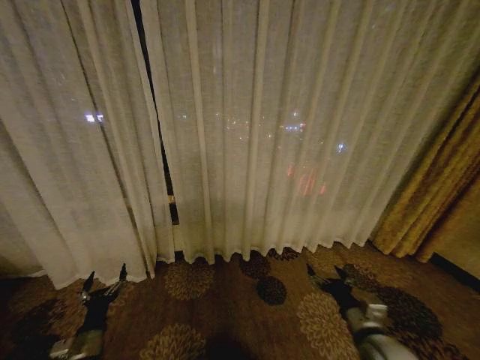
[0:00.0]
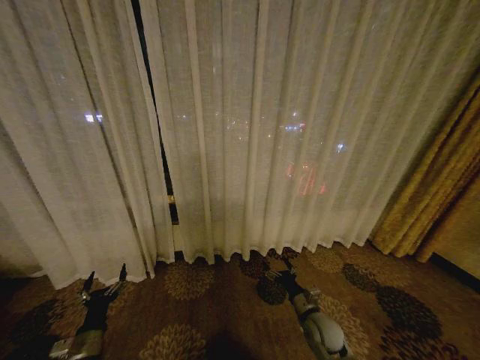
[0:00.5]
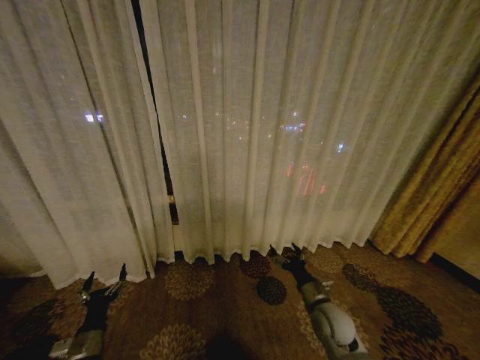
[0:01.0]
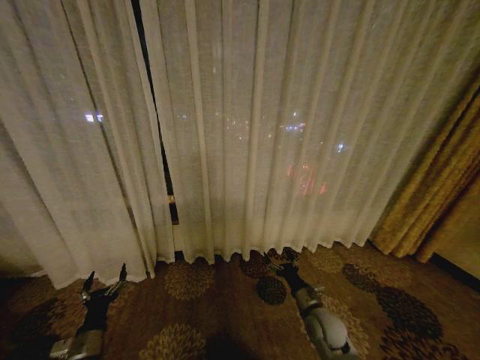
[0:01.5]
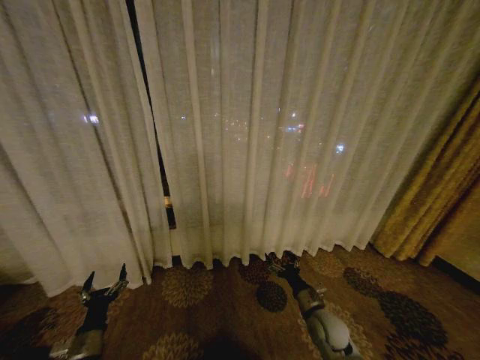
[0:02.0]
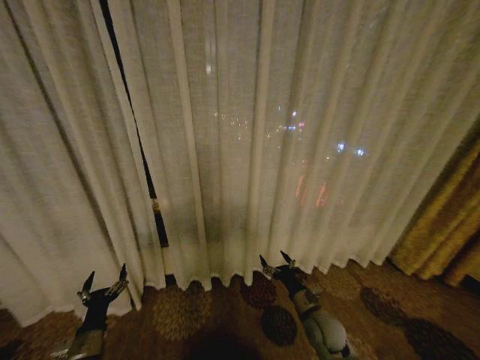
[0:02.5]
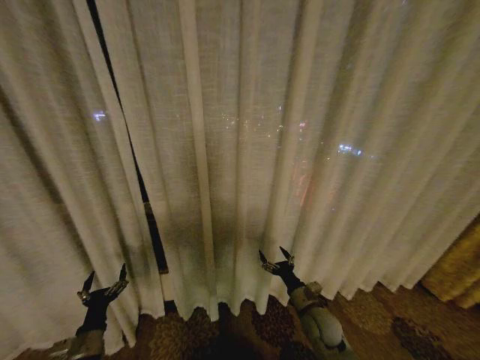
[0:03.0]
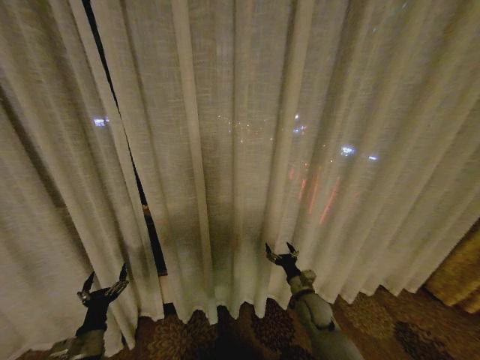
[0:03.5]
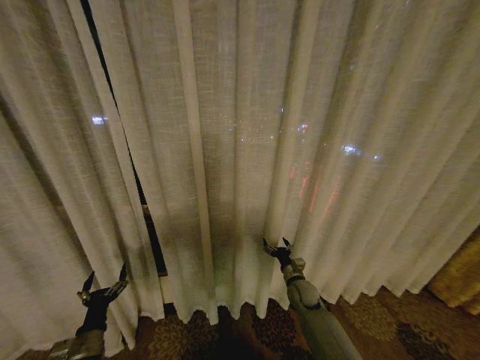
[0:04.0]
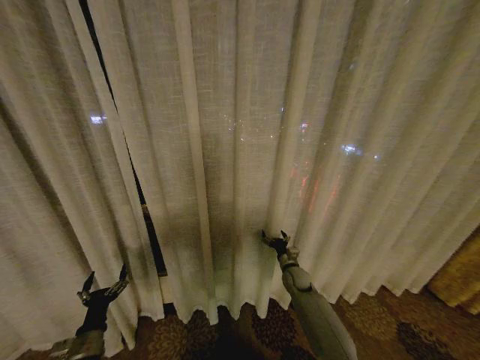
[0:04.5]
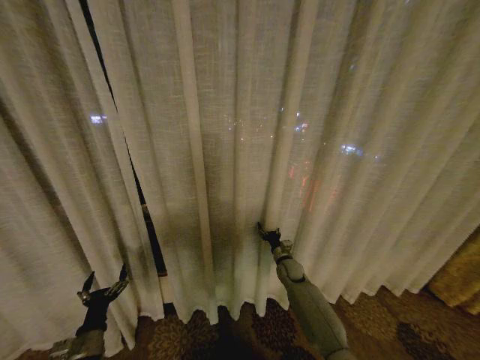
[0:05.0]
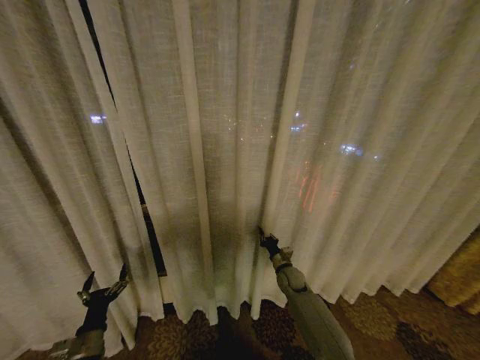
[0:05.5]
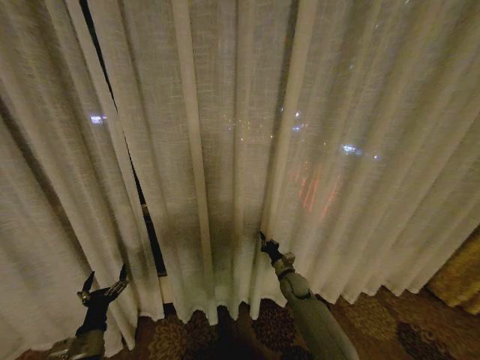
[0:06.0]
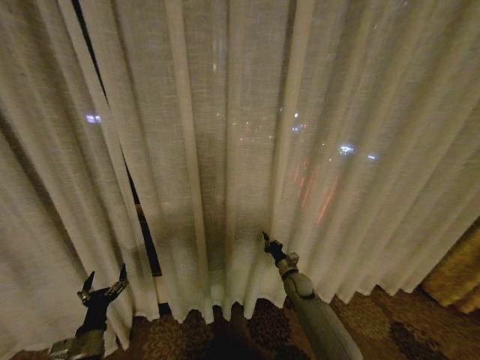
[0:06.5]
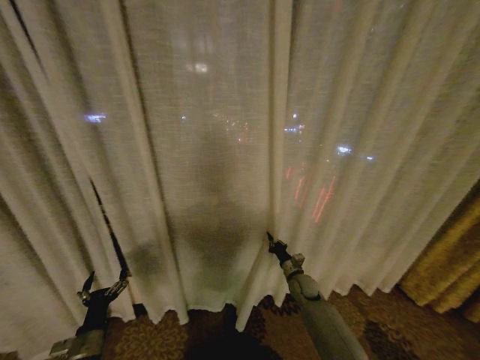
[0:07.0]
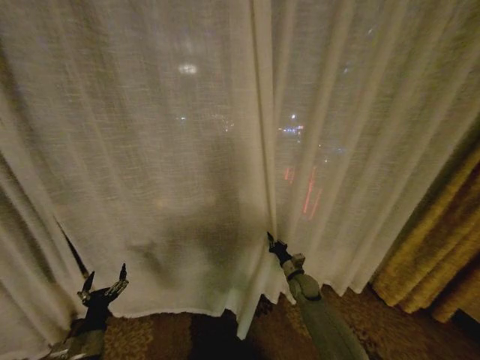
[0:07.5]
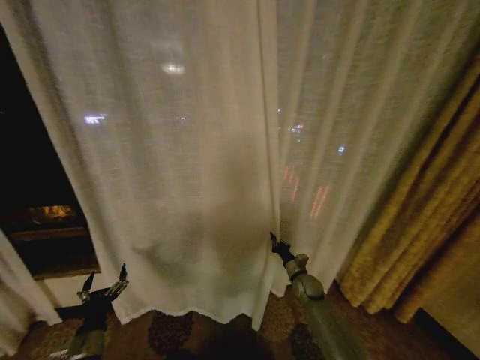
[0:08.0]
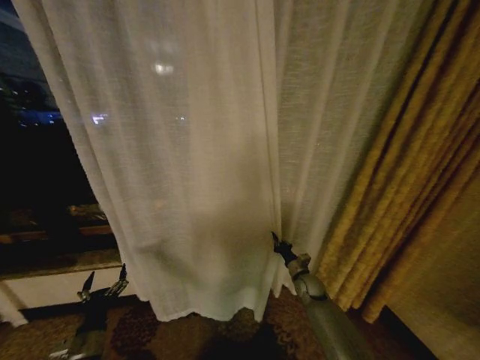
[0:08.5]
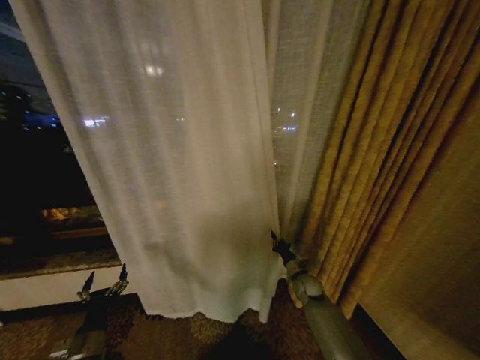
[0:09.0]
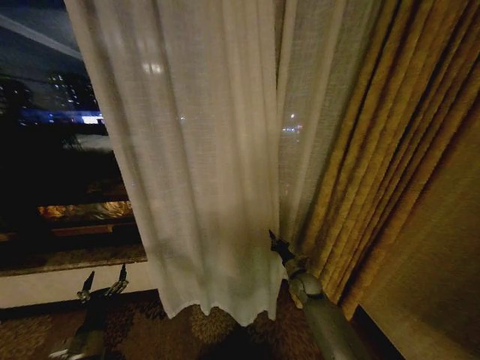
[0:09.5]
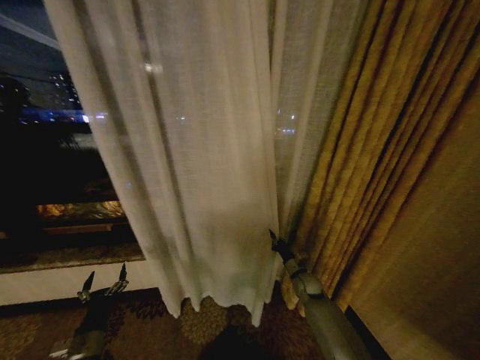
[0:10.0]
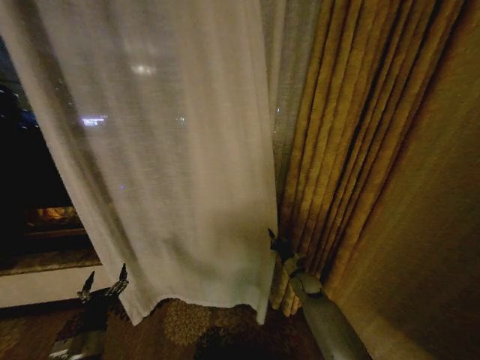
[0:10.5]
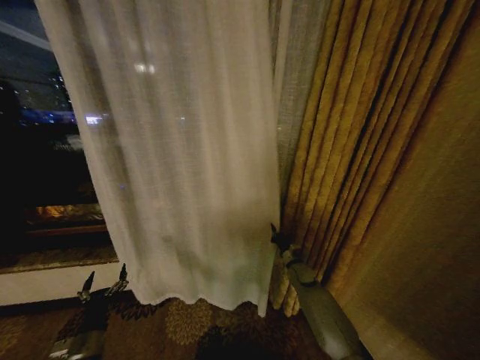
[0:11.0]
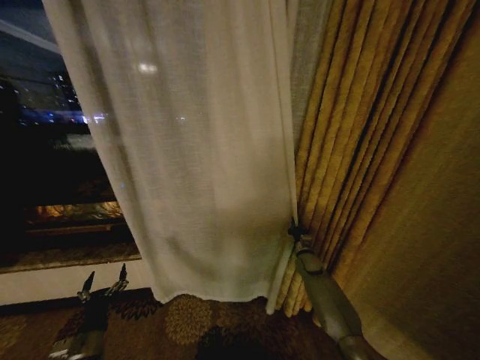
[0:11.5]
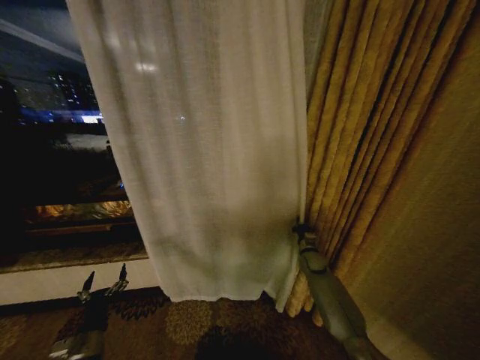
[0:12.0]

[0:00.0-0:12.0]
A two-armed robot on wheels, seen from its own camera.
Task of the whole recording: Open the curtains by pulling them apart, changing their state from closed to fully open.
0:02.0 to 0:04.0: The right gripper is displaced forward by some 10 cm.
0:04.0 to 0:06.0: The right gripper closes up.
0:10.0 to 0:12.0: The right gripper shifts about 5 cm forward.

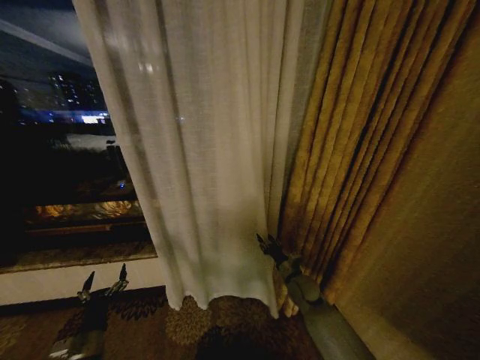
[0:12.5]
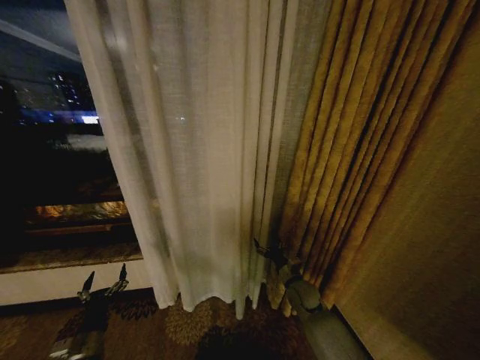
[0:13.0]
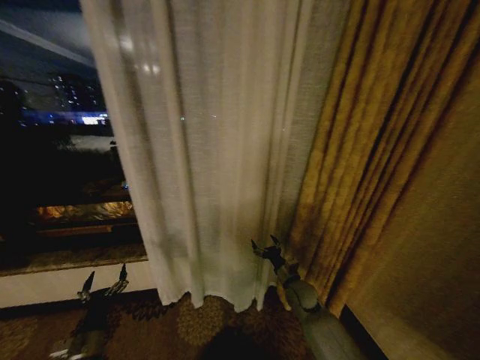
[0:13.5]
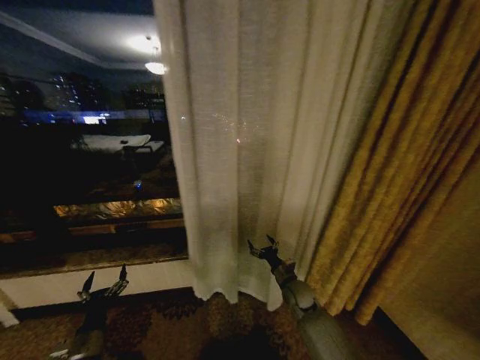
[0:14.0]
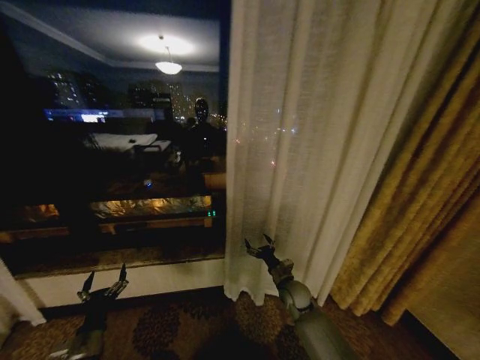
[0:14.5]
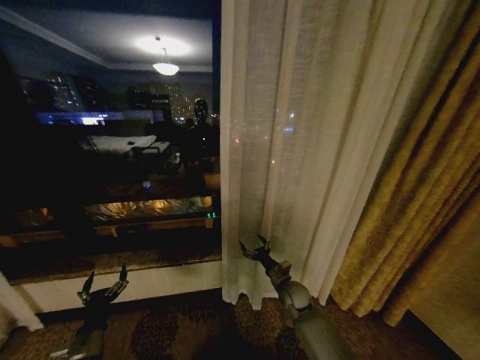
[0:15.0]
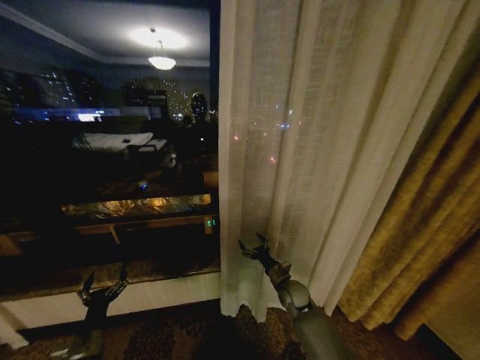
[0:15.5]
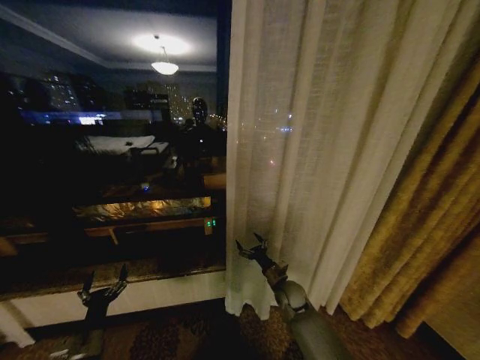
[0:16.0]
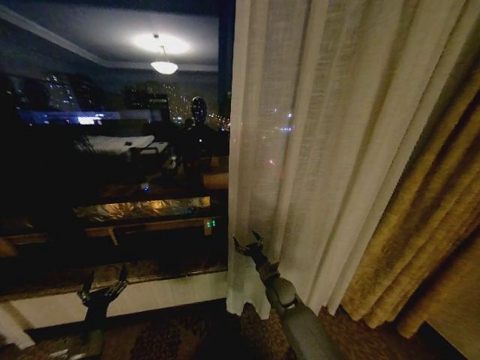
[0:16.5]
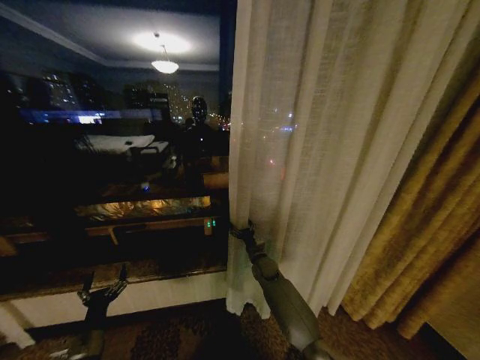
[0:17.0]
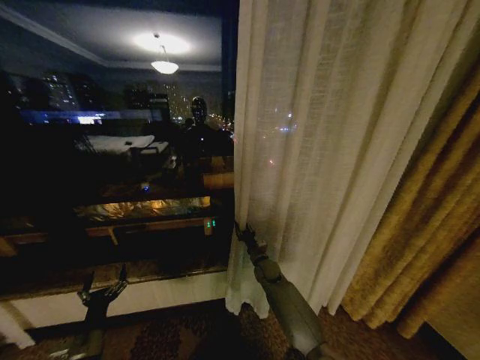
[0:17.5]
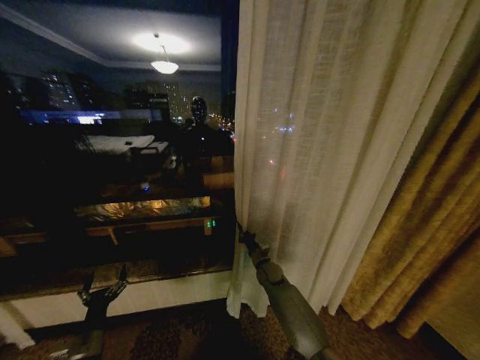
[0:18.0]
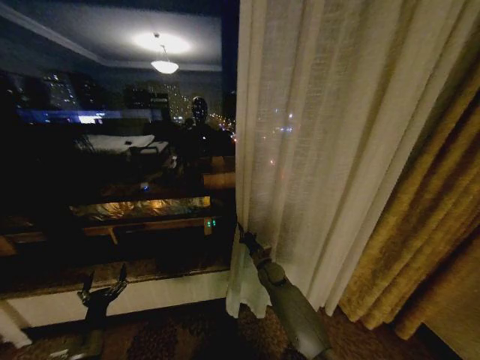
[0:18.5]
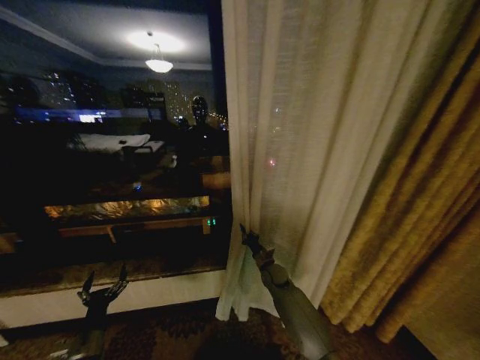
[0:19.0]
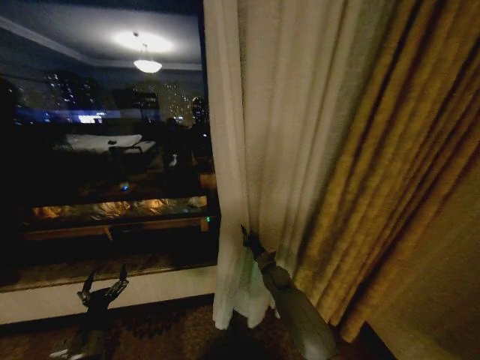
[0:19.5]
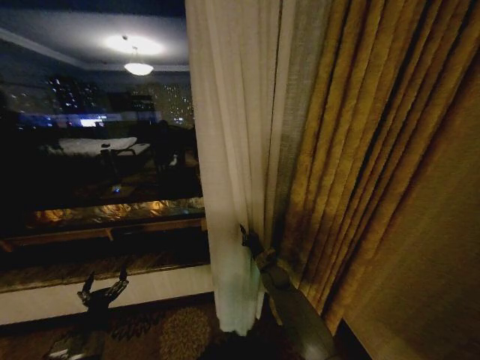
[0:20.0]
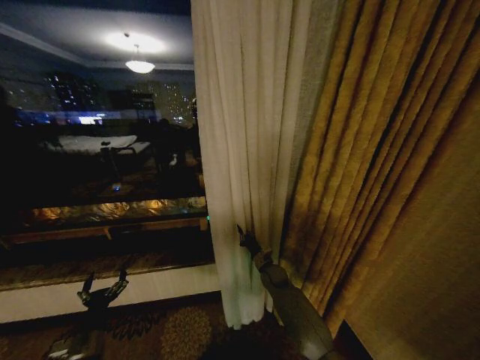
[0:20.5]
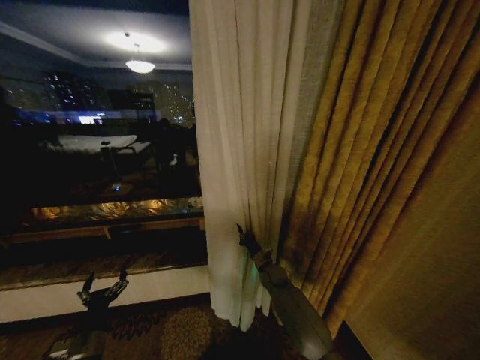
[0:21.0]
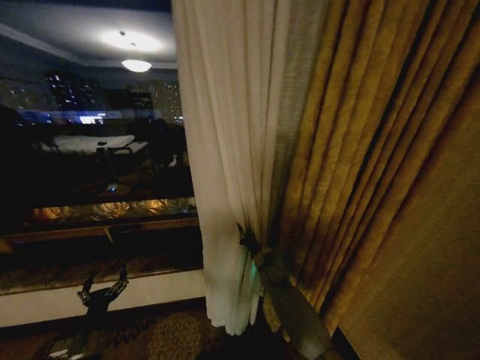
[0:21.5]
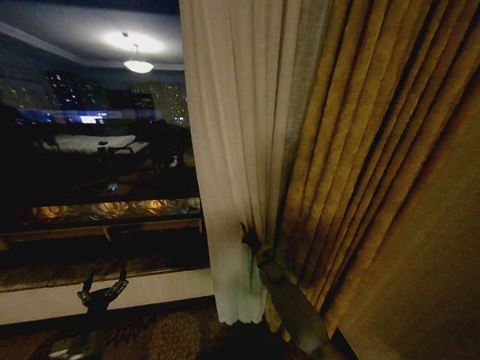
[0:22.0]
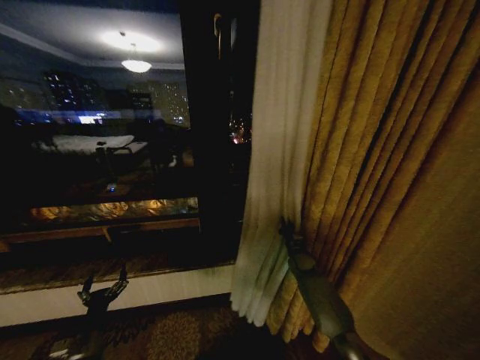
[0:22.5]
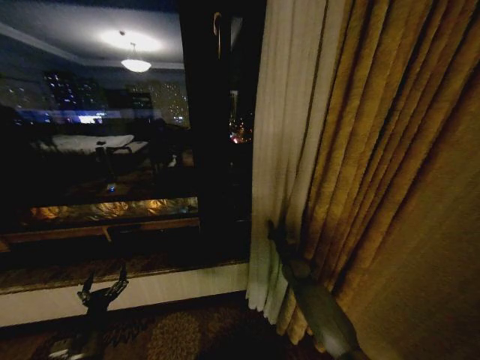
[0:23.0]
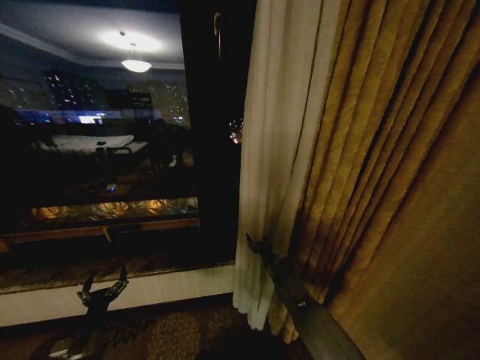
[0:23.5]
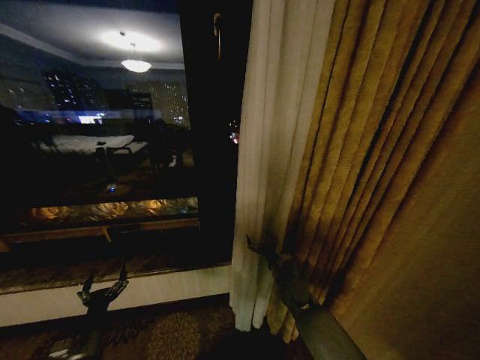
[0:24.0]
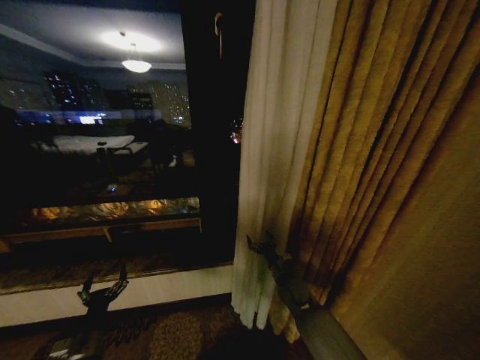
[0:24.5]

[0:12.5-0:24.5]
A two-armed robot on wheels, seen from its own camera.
Task of the whole recording: Open the curtains by pulling them apart, changing their state from closed to fully open.
0:12.5 to 0:14.5: The right gripper opens.
0:16.5 to 0:18.5: The right gripper shifts roughly 5 cm forward, and closes.
0:20.5 to 0:22.5: The right gripper shifts roughly 10 cm to the right.
0:22.5 to 0:24.5: The right gripper goes about 15 cm backward and to the left, and opens up.

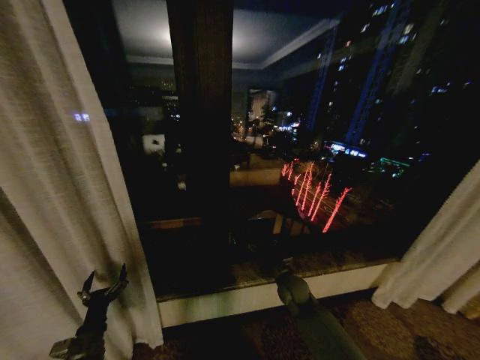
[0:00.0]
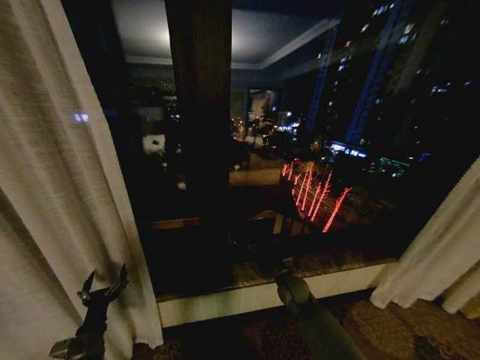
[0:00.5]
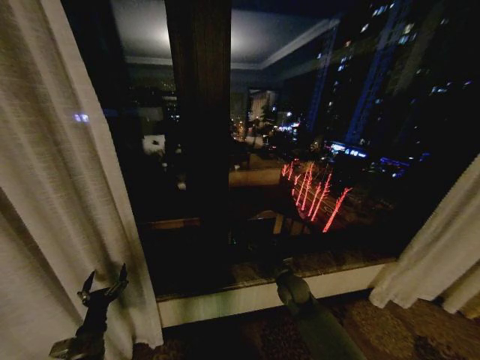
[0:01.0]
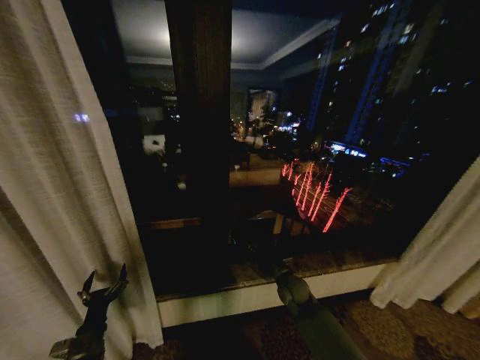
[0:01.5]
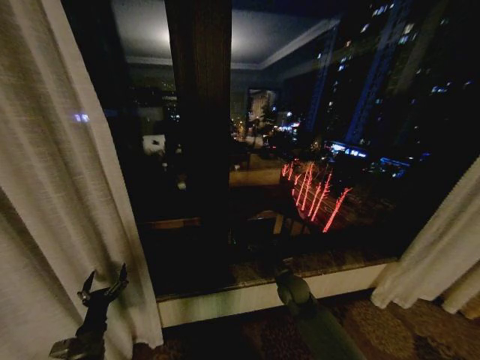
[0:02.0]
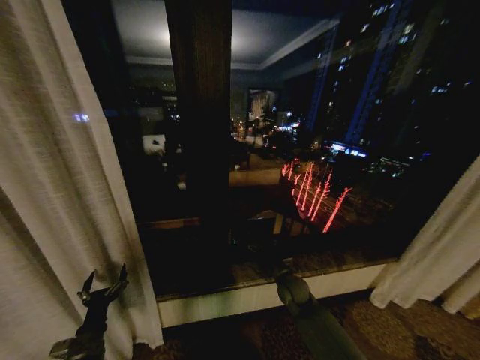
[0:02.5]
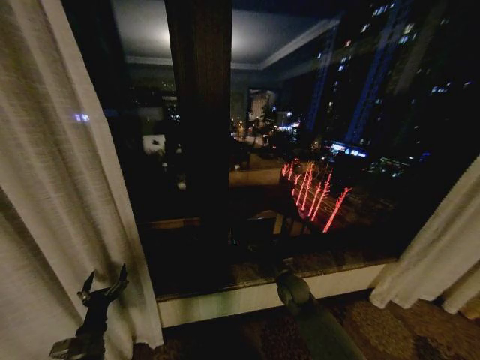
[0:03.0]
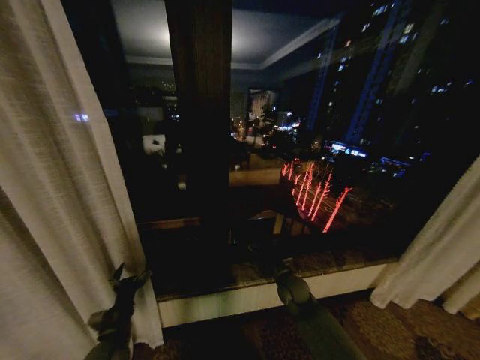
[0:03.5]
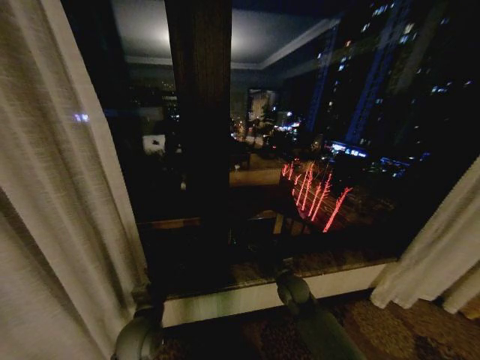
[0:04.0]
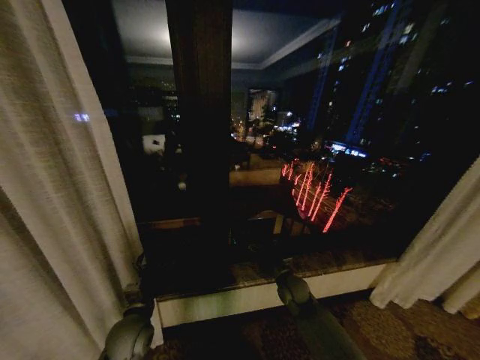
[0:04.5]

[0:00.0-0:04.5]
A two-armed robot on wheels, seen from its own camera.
Task of the whole recording: Open the curtains by pulling them apart, changing their state from closed to fully open.
0:00.0 to 0:02.0: Both grippers stay about where they are.
0:02.0 to 0:04.5: The left gripper is displaced to the right, upward and forward by approximately 15 cm.
